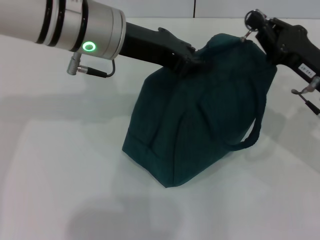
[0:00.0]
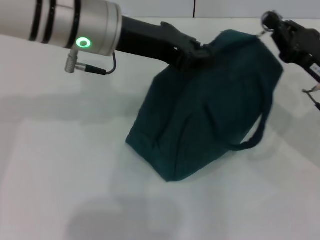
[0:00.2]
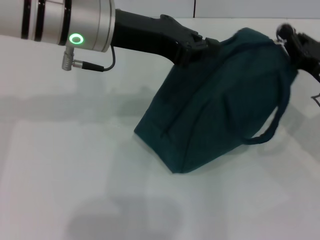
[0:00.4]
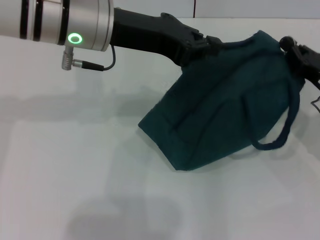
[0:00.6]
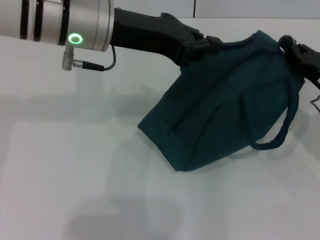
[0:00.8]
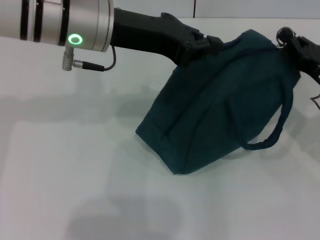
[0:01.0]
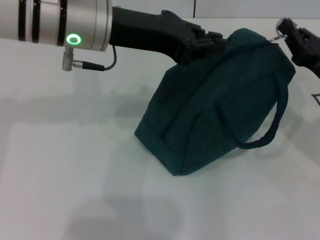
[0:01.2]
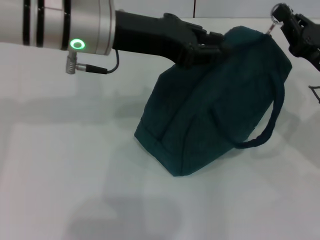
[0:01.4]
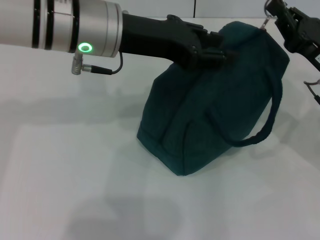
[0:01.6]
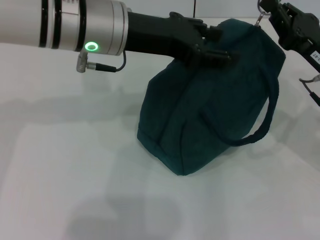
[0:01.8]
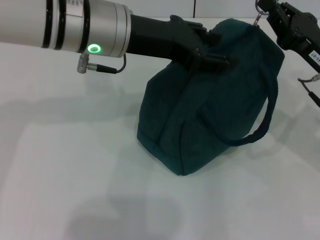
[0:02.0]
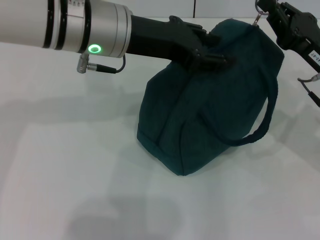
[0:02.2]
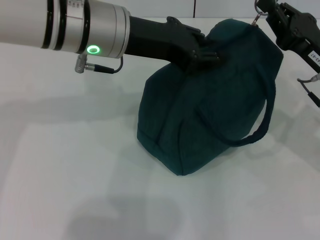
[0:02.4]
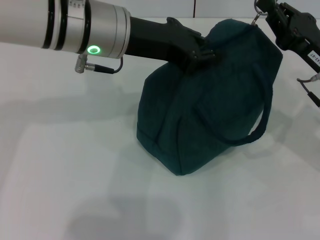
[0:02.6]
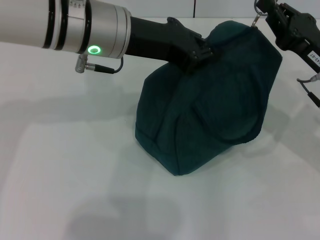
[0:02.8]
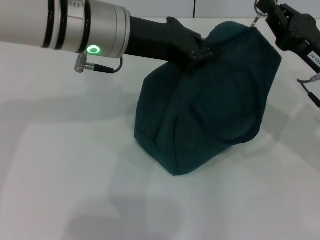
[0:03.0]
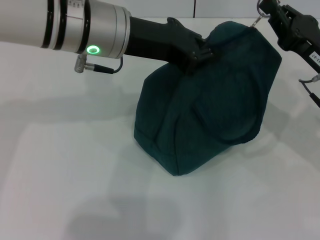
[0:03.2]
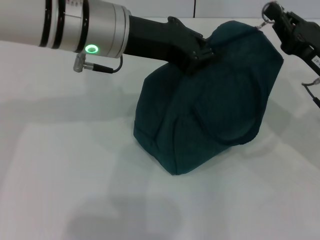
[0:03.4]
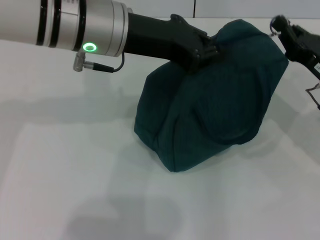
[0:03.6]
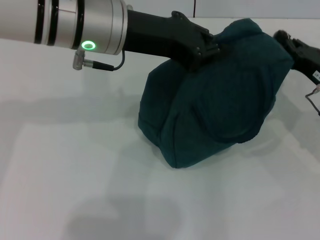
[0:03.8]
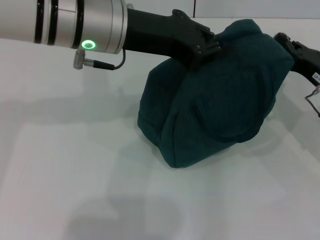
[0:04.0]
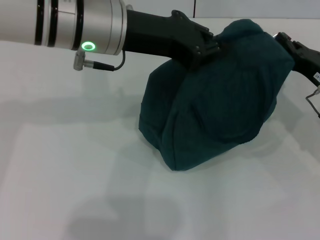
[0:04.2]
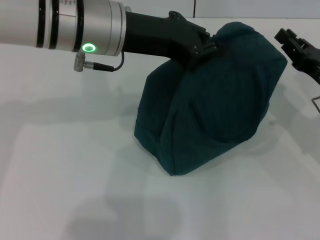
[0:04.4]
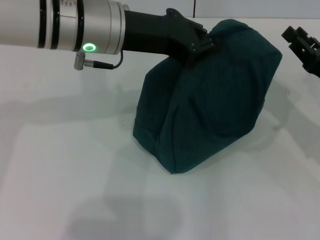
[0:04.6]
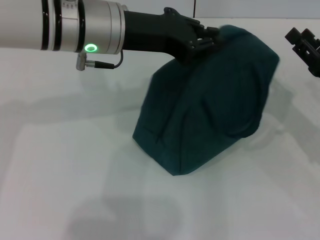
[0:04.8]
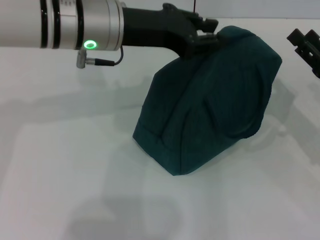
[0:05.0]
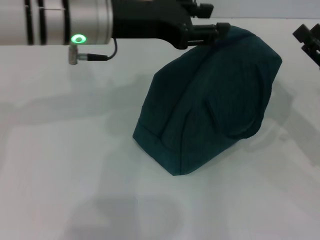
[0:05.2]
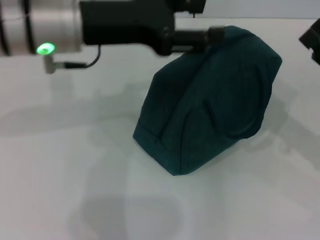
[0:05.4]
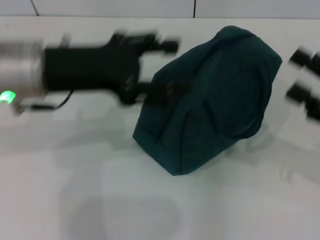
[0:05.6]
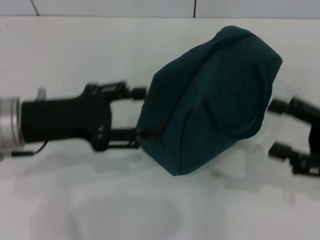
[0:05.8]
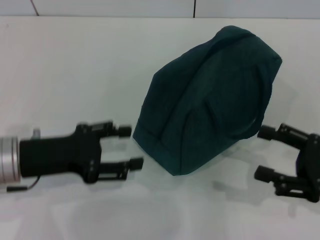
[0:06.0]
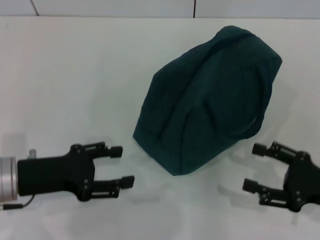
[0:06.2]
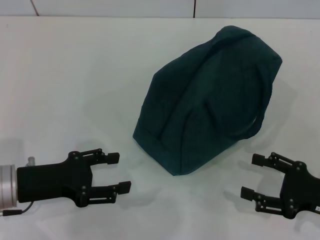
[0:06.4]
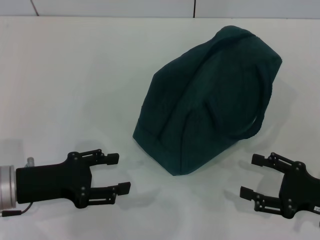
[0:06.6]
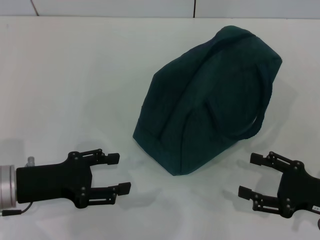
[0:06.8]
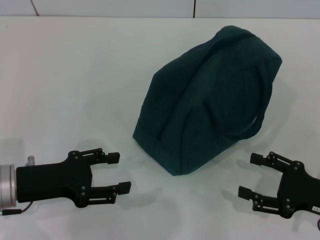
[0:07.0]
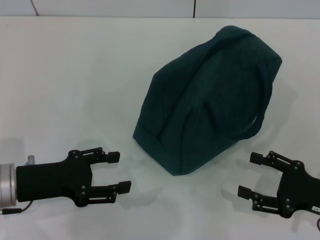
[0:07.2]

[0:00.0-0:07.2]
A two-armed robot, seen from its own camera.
Step, 0:00.0 to 0:04.2: Zip up the lunch bag with your right hand.
Step, 0:04.4 to 0:04.8: Hold the lunch bag with your left hand.
0:01.4 to 0:02.8: The left gripper opens, then closes again.
0:02.8 to 0:04.4: The right gripper changes place by approximately 5 cm.
0:04.4 to 0:05.8: The right gripper goes about 10 cm backward, and opens up, while the left gripper moves to the left, backward and downward, about 15 cm, and opens up.
0:05.8 to 0:07.2: The grippers both shift downward by roughly 10 cm.
